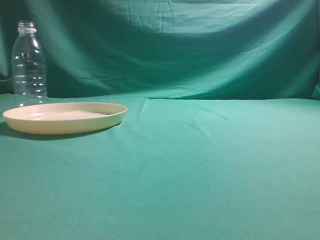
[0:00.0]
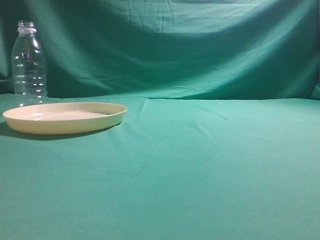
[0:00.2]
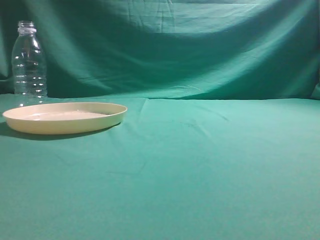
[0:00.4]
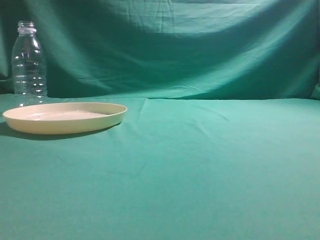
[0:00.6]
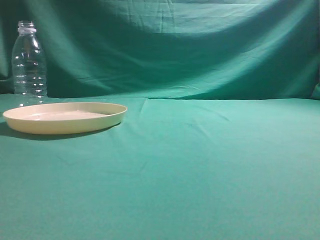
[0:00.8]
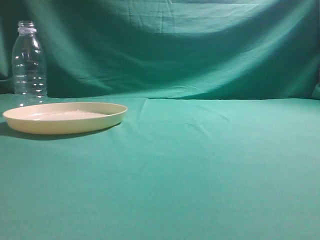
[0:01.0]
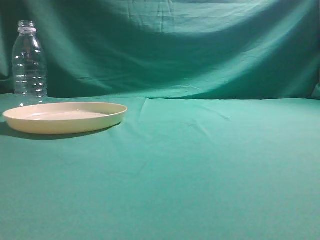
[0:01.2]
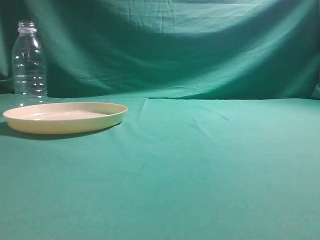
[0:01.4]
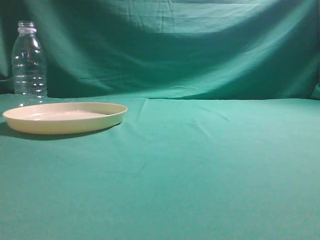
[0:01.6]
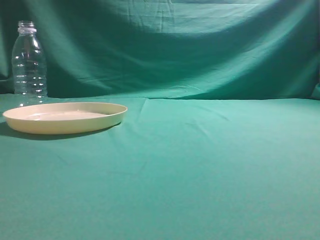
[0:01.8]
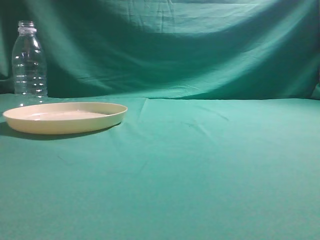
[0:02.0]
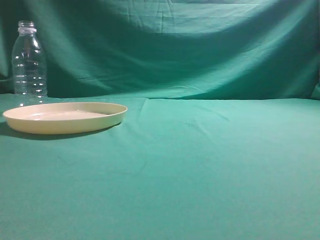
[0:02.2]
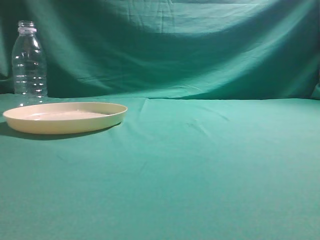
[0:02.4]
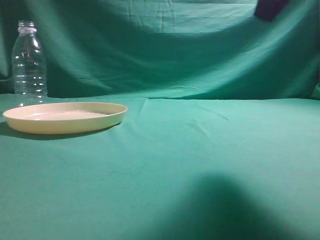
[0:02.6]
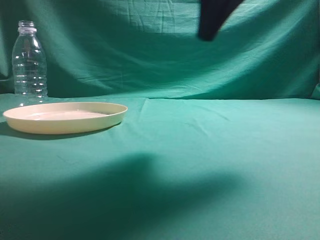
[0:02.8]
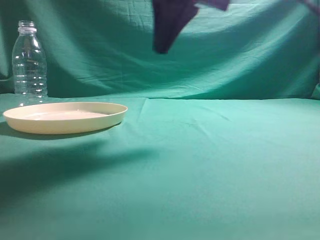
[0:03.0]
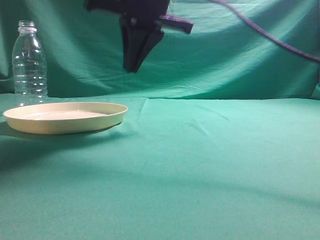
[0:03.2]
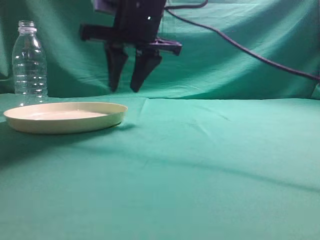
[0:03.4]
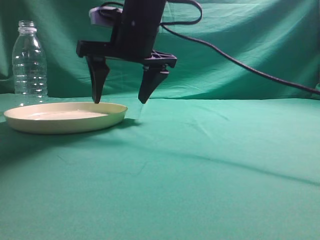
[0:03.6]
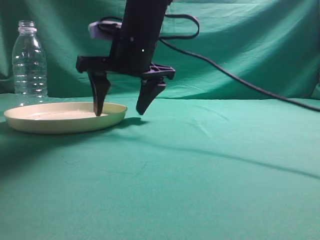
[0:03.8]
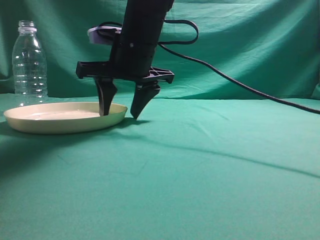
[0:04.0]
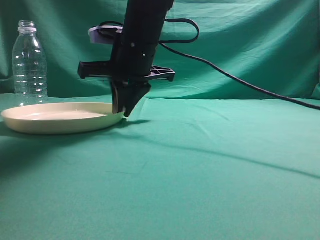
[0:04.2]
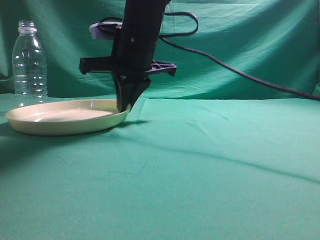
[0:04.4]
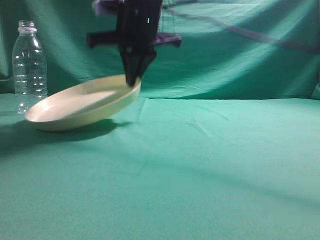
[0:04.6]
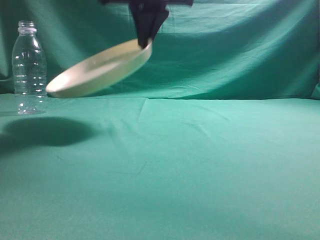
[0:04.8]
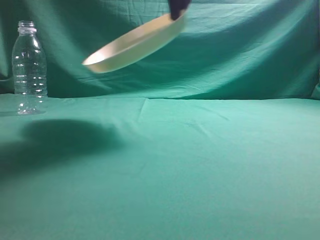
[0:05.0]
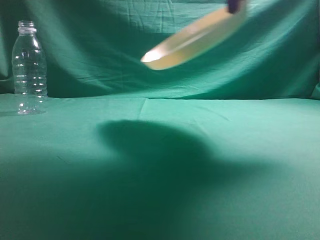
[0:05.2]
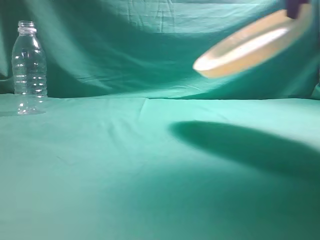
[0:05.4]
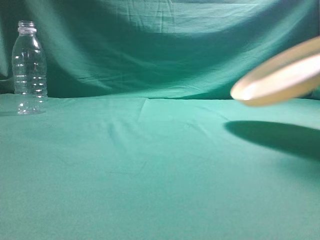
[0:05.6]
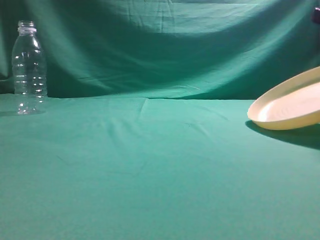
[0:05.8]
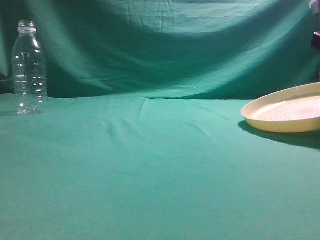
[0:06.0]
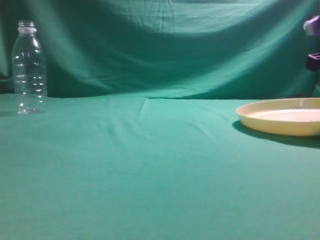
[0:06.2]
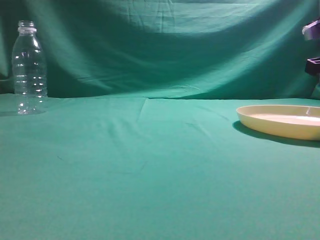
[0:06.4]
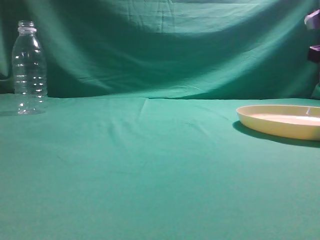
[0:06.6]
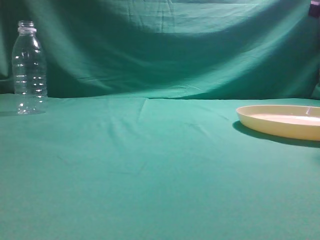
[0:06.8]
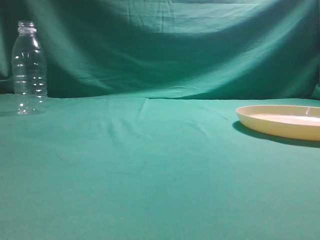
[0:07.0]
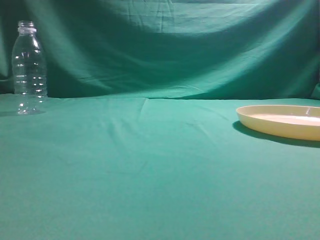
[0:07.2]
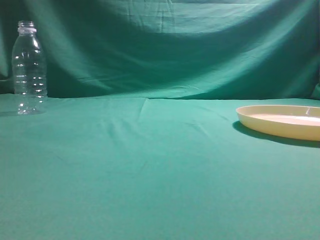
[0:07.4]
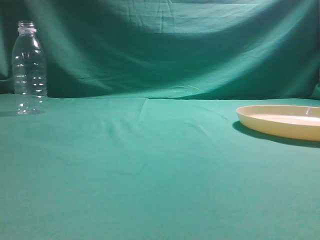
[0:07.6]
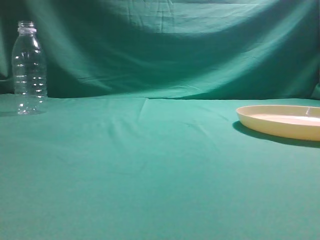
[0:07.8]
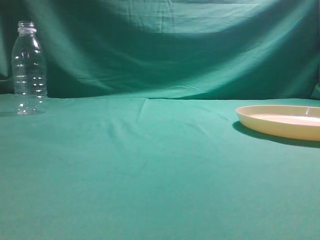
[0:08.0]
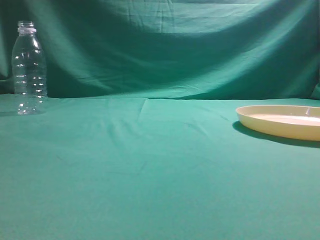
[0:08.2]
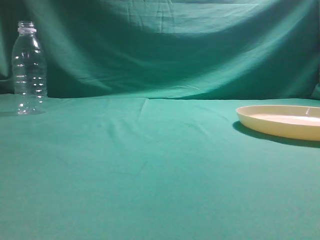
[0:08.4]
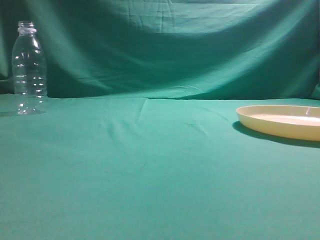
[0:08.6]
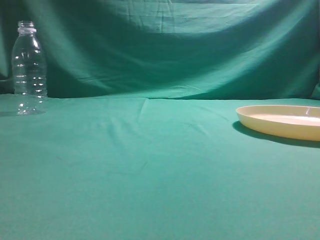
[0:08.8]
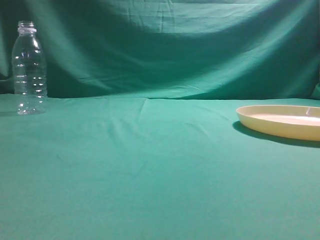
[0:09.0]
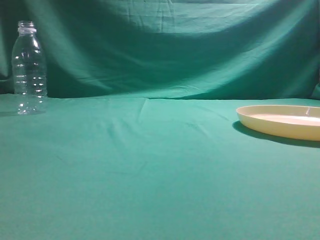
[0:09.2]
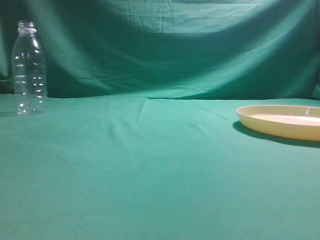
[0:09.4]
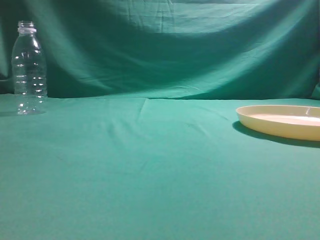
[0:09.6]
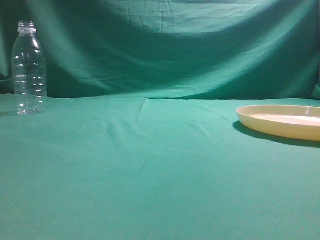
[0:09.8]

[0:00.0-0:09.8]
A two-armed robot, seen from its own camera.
Step, 0:00.0 to 0:04.6: Pick the container that can hold fruits.
Step, 0:04.8 to 0:06.8: Move the picked object to the right side of the table.
0:01.4 to 0:02.8: The right gripper shifts roughly 25 cm forward and to the left.
0:02.8 to 0:04.2: The right gripper is displaced to the left, forward and downward by about 25 cm, and opens its fingers.
0:04.2 to 0:05.6: The right gripper heads to the right and upward, covering roughly 30 cm, and closes up.
0:05.6 to 0:07.0: The right gripper goes downward and returns, approximately 10 cm each way, and opens and closes again.
